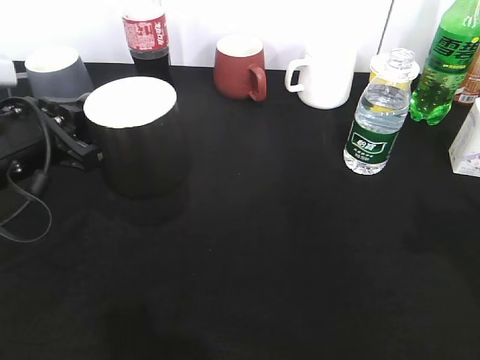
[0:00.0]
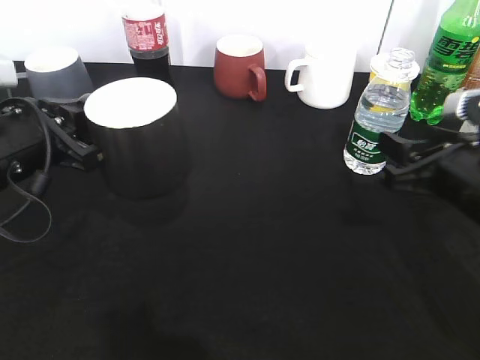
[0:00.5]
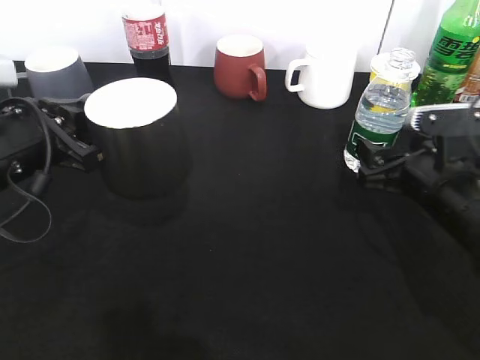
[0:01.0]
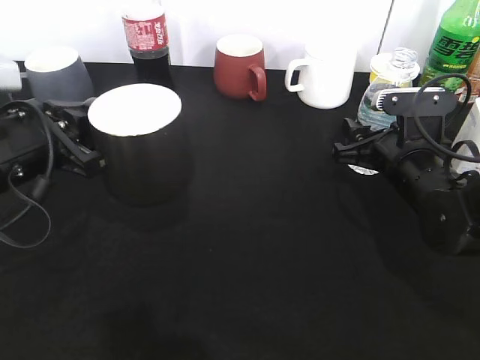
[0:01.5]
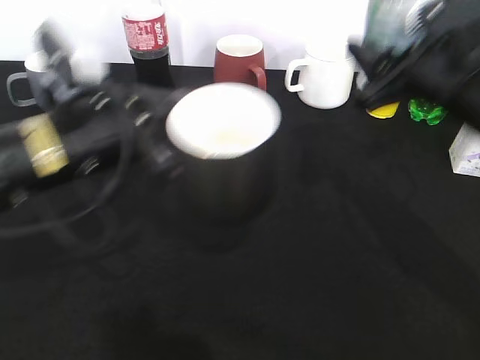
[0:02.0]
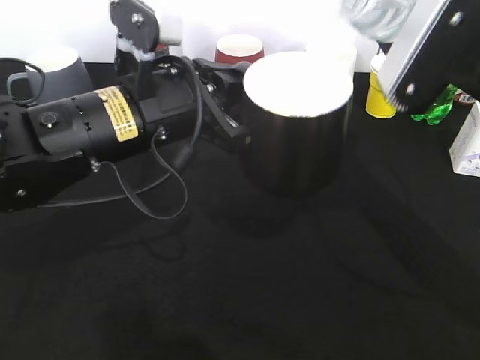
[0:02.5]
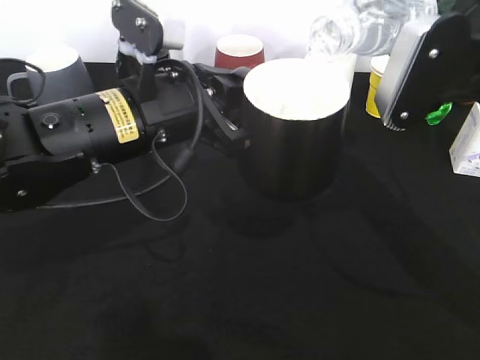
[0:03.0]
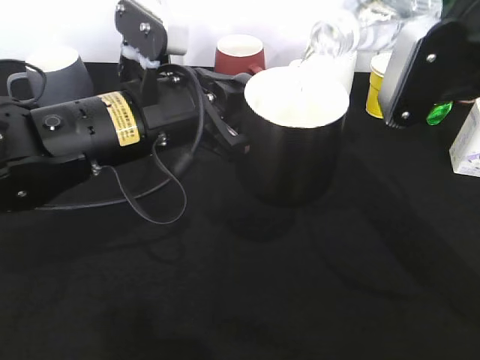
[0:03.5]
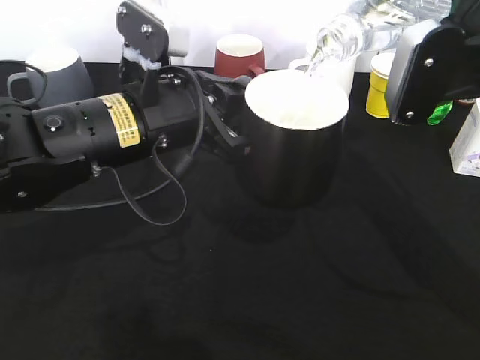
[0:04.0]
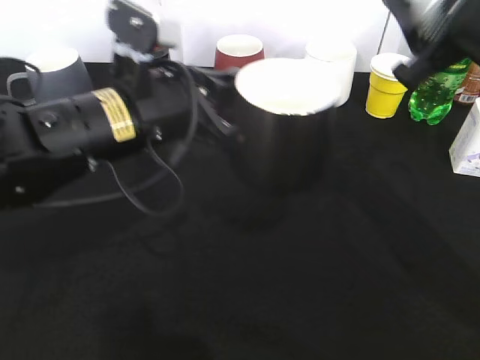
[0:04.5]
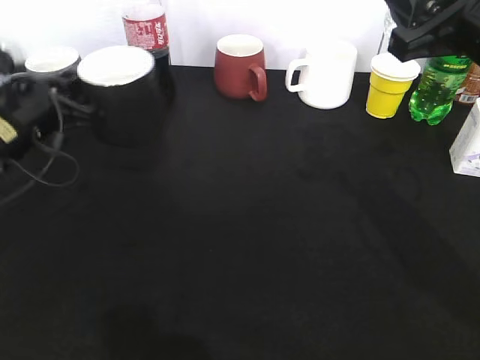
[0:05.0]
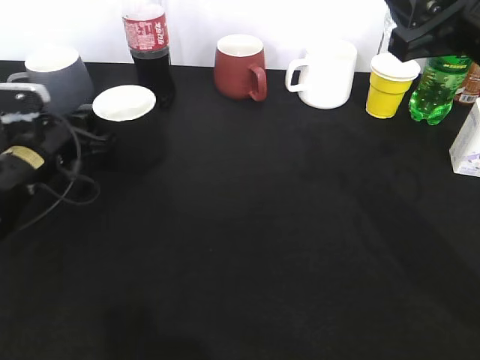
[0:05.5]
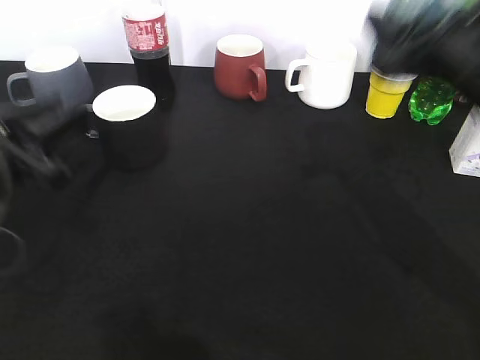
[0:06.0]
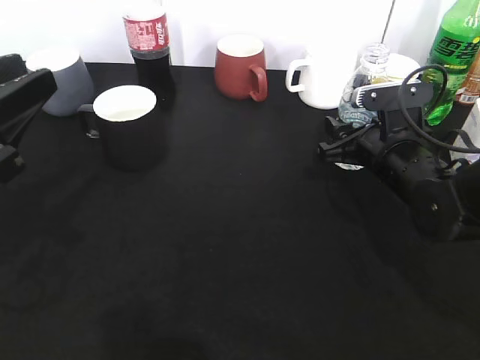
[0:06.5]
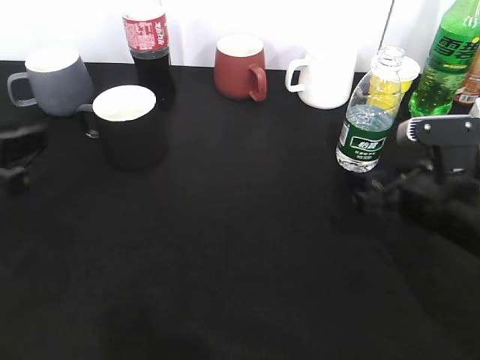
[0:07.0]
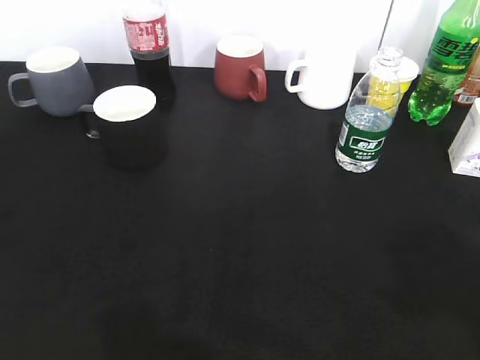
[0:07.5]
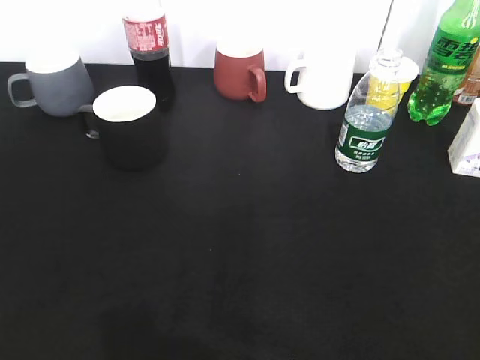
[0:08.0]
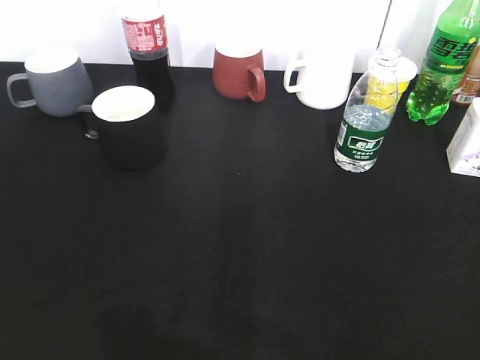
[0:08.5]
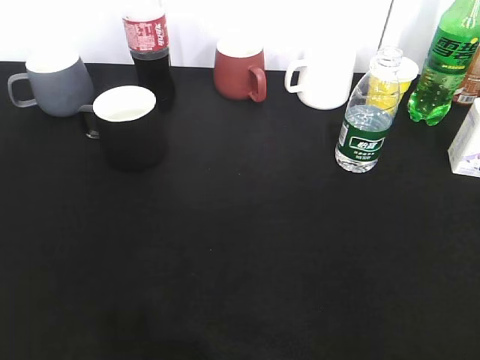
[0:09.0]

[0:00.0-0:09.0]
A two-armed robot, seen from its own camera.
Step, 0:00.0 to 0:01.5: Grasp the bottle with water with right gripper.
Step, 0:02.0 to 0:04.0: Pour the water from bottle to cup with right gripper.
Step, 0:04.5 to 0:05.5: Place the black cup on the table with left gripper.
Step, 0:06.0 to 0:06.5: Place the water bottle on the table with right gripper.
0:00.0 to 0:02.0: The left gripper travels to the right by some 10 cm, while the right gripper travels forward and to the left by about 15 cm, and opens, then closes once more.
0:04.5 to 0:07.0: The right gripper travels downward by approximately 15 cm, and opens its fingers. Meanwhile the left gripper moves to the left and backward, about 20 cm, and opens.
0:07.0 to 0:09.0: The right gripper goes approximately 30 cm backward, upward and to the right. The left gripper moves backward, approximately 20 cm.
